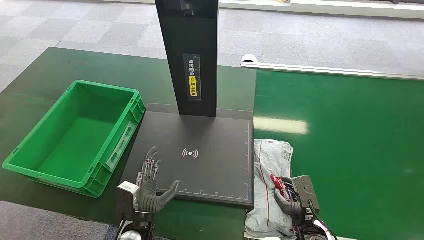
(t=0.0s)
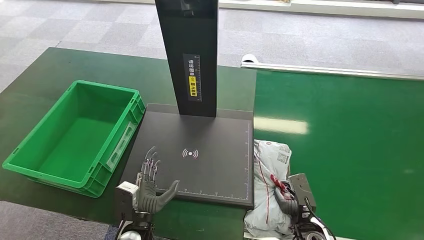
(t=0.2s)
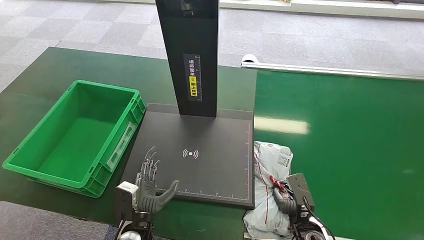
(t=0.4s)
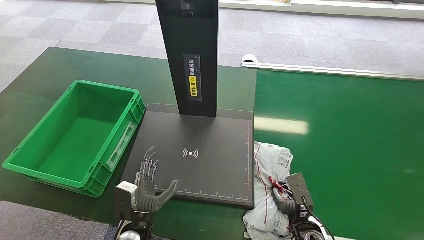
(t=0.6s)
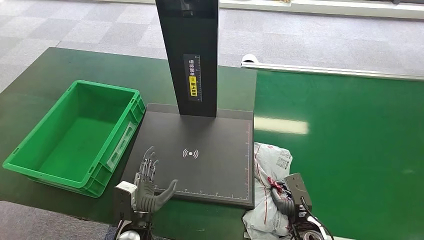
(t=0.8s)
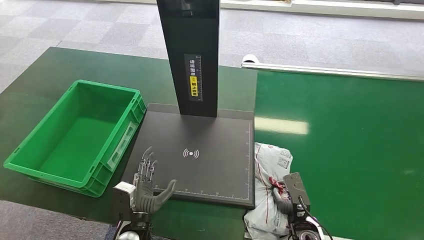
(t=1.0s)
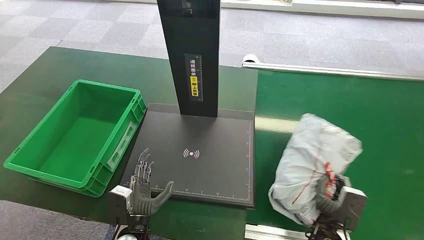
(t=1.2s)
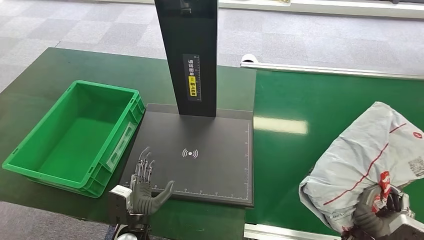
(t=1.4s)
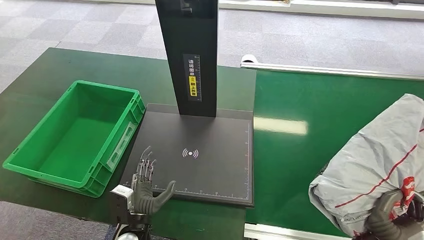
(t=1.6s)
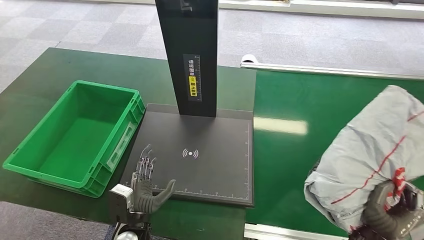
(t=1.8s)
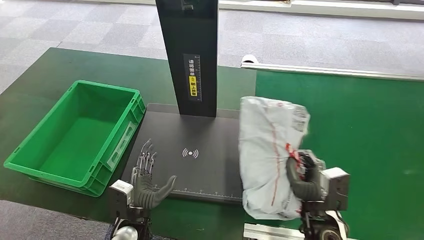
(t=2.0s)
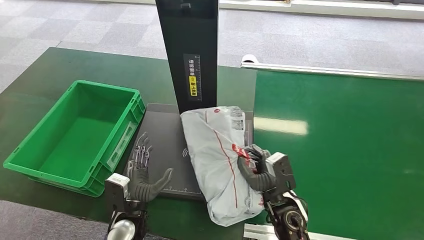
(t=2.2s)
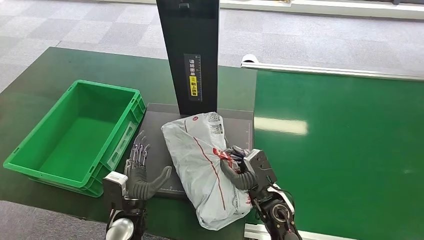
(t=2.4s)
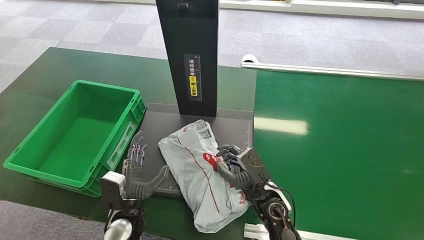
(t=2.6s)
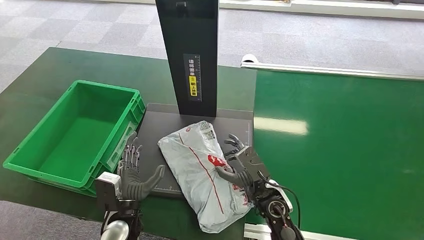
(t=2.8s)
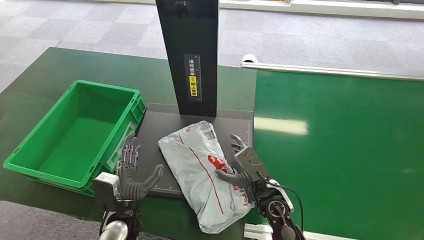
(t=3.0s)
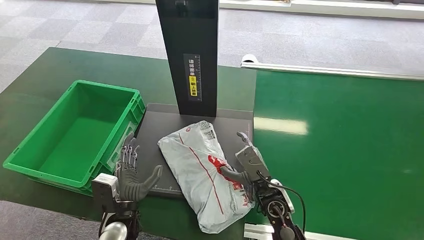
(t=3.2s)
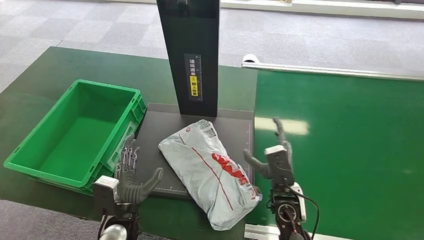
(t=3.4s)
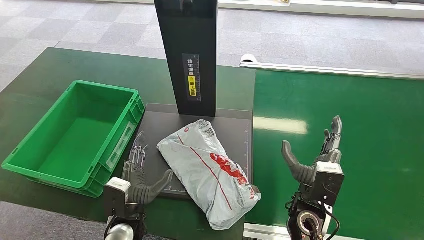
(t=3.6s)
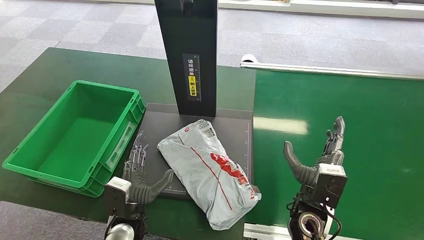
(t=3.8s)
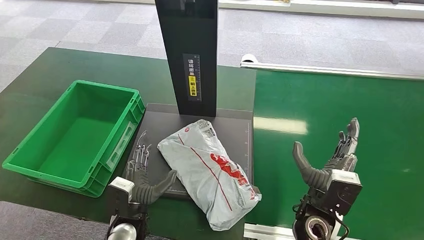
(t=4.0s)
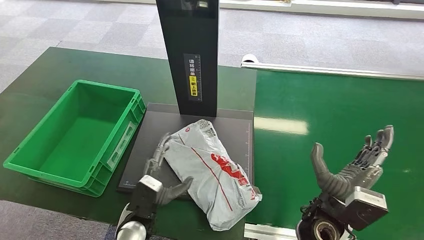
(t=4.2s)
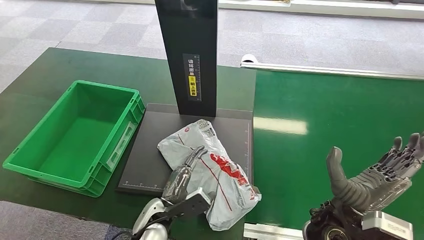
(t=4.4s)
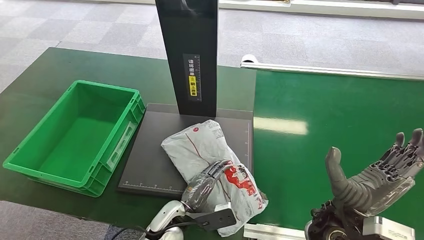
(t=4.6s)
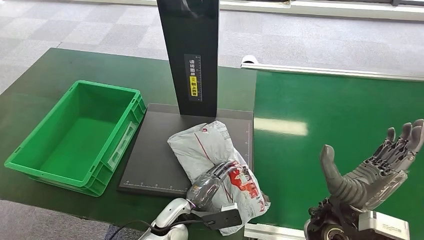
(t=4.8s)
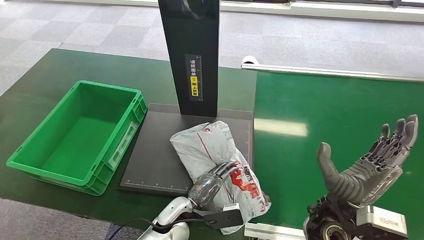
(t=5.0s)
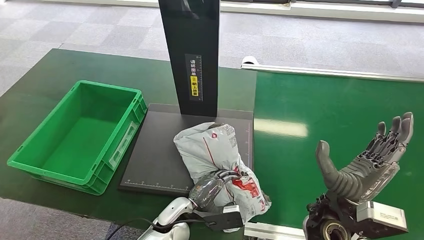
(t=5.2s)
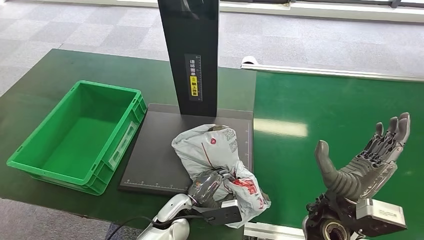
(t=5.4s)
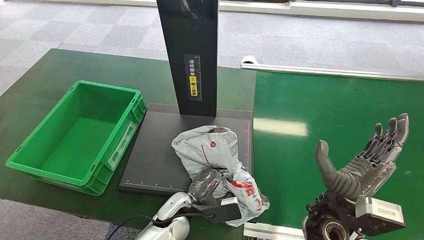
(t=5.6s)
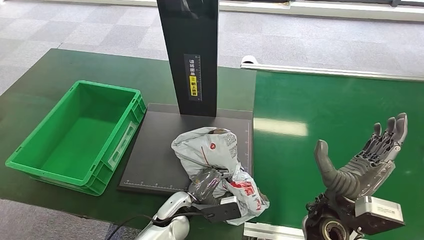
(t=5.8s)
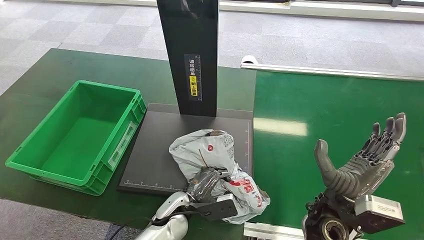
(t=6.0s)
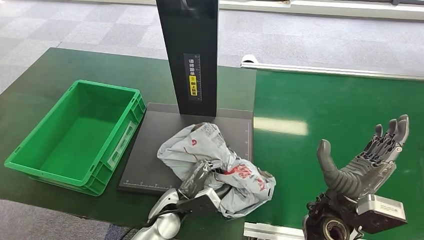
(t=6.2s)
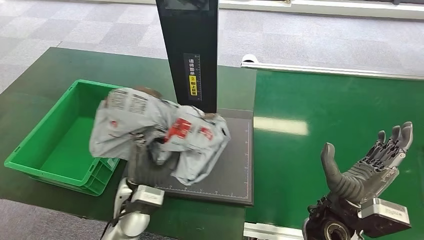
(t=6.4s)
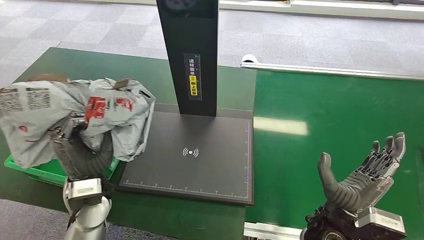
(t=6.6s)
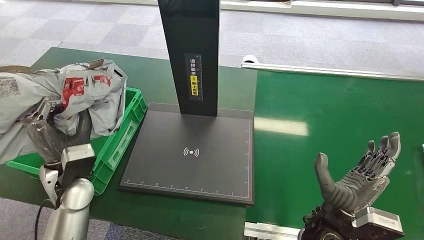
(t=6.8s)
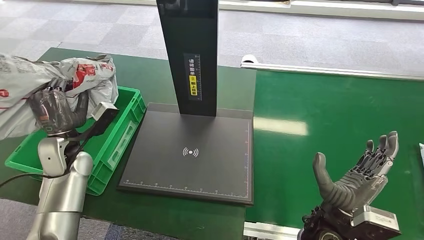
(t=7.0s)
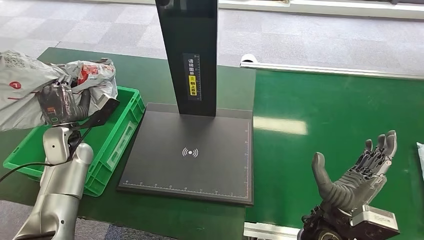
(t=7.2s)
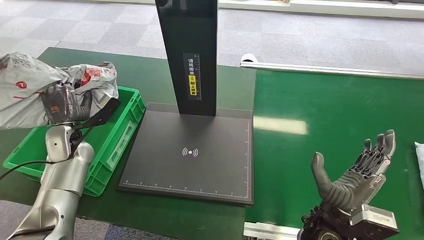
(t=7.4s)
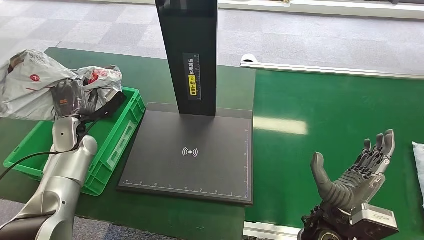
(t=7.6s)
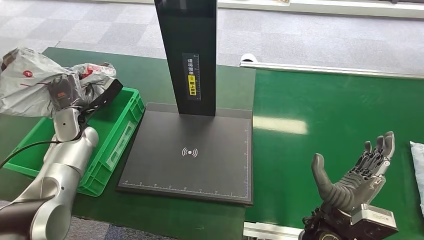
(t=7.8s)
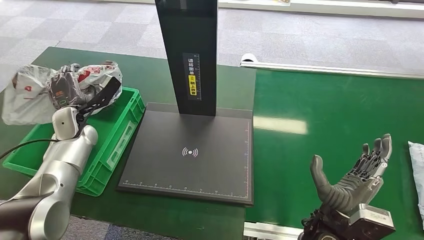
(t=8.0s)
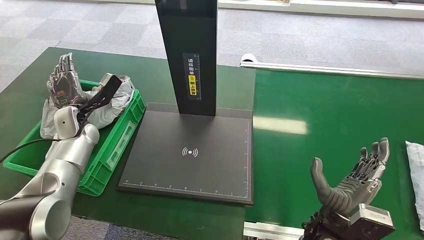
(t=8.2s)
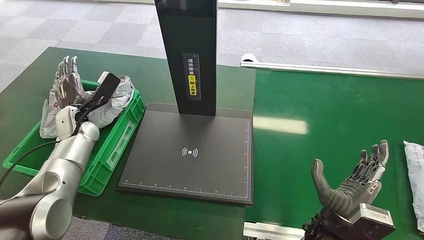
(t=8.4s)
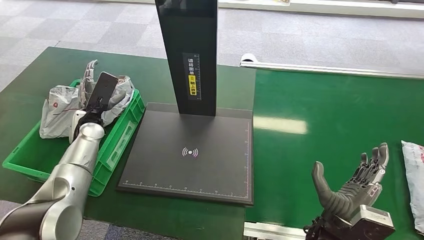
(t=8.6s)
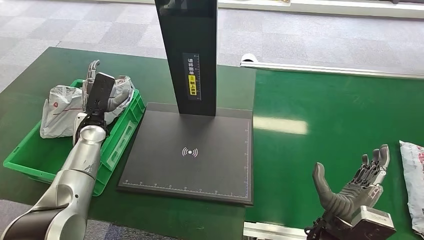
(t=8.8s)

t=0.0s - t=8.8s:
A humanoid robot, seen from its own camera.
Step, t=0.0s - t=1.8s: Pick up the package from the conveyor belt.
Step, t=2.0s - t=3.4s: Place the package onto the inbound machine.
Step, t=3.6s - t=6.8s: Pick up the package from the inbound machine.
Step, t=7.0s - t=8.8s: Place the package into the parcel locker.
t=3.0s - t=4.4s: The right hand goes approximately 10 cm upward and to the right. The left hand travels to the right by some 5 cm.
t=7.4s - t=8.8s: The left hand shifts by approximately 5 cm.
